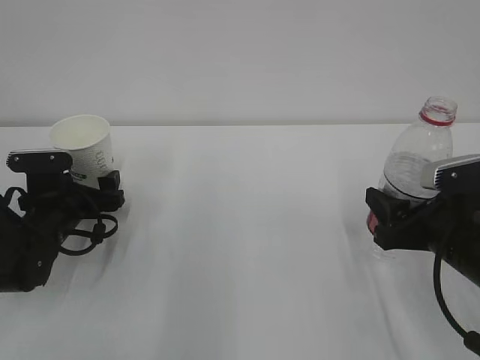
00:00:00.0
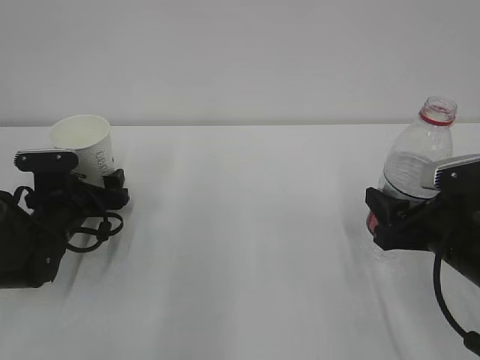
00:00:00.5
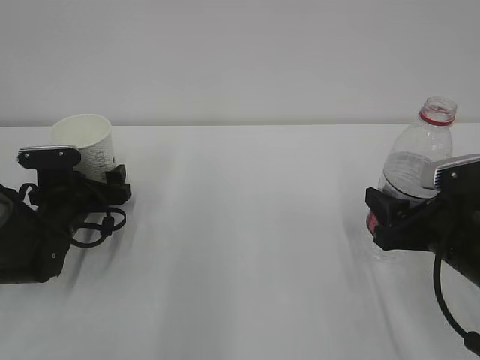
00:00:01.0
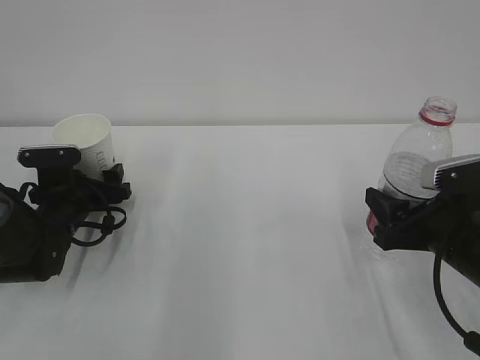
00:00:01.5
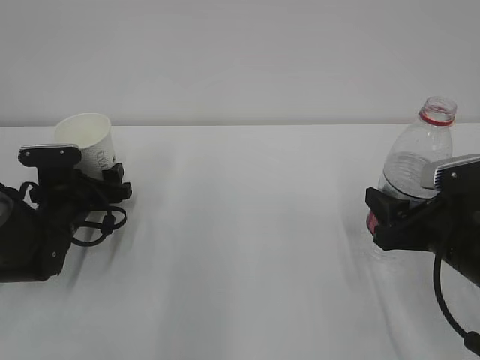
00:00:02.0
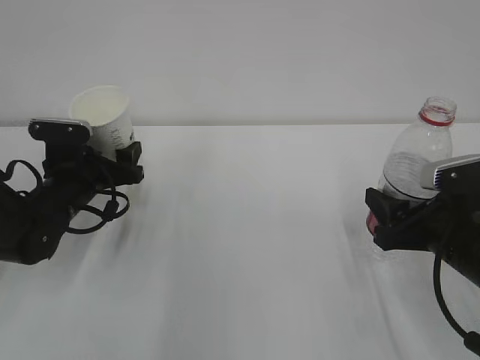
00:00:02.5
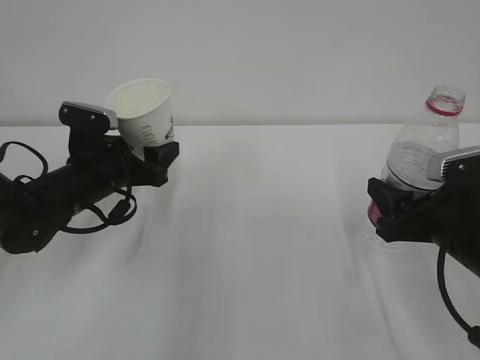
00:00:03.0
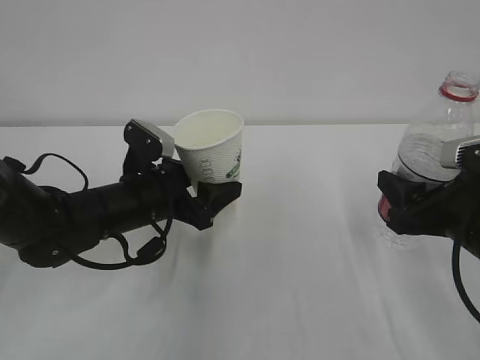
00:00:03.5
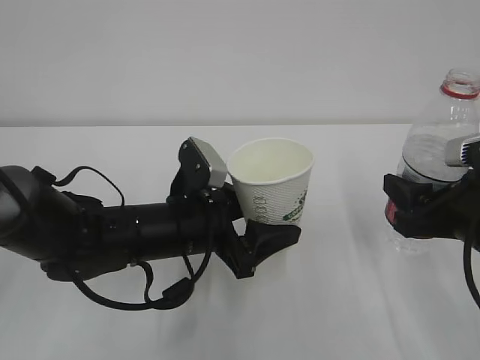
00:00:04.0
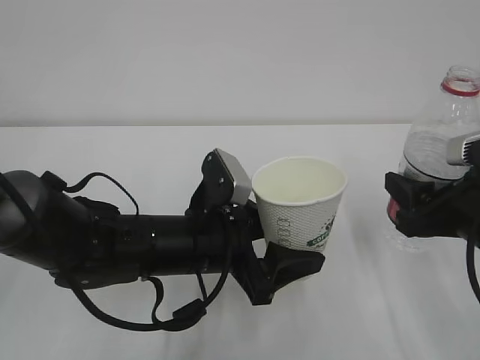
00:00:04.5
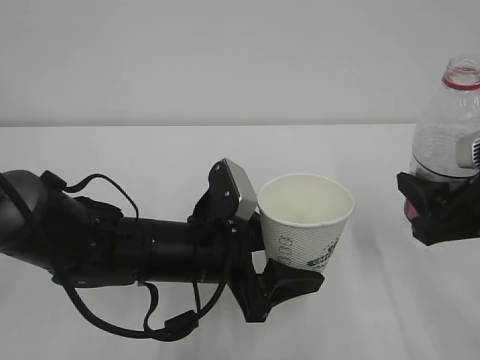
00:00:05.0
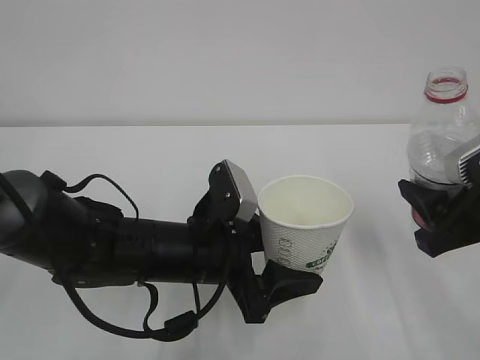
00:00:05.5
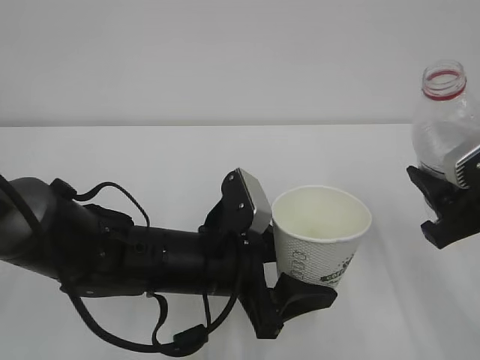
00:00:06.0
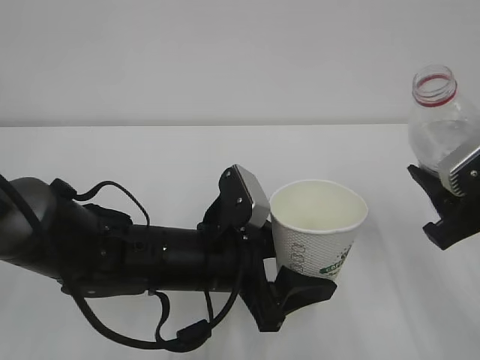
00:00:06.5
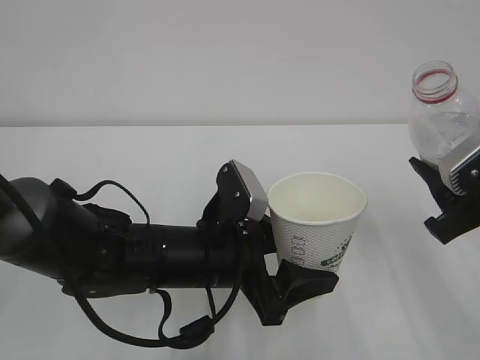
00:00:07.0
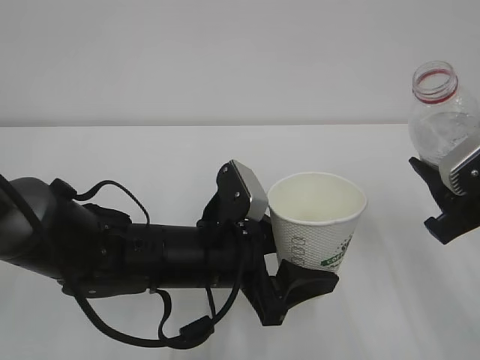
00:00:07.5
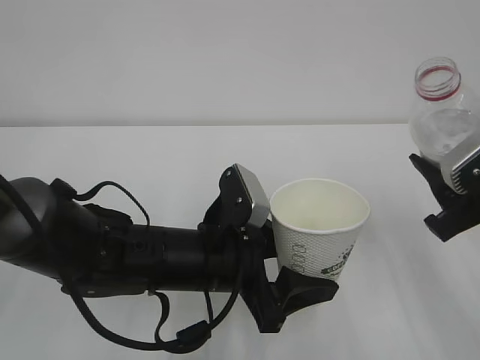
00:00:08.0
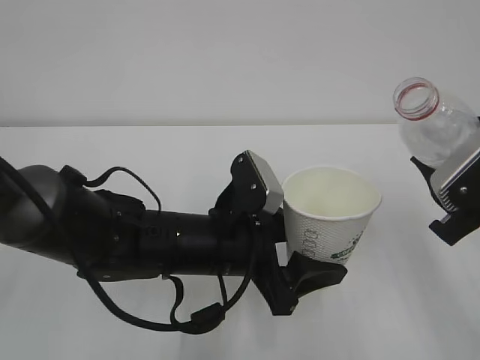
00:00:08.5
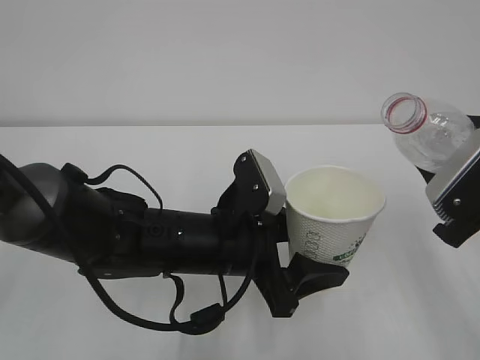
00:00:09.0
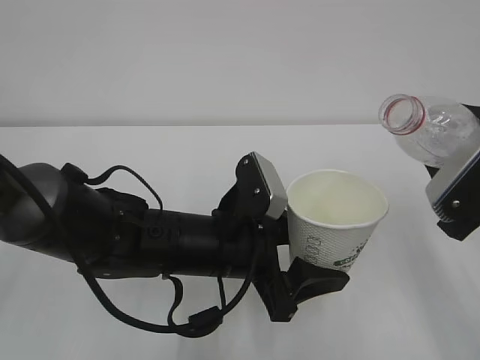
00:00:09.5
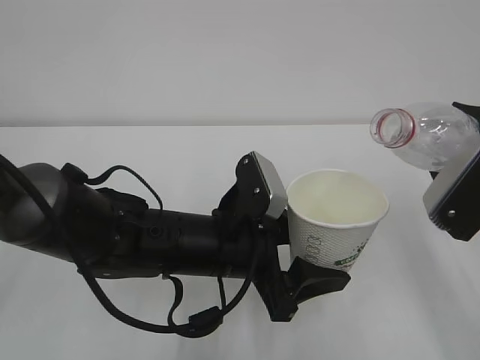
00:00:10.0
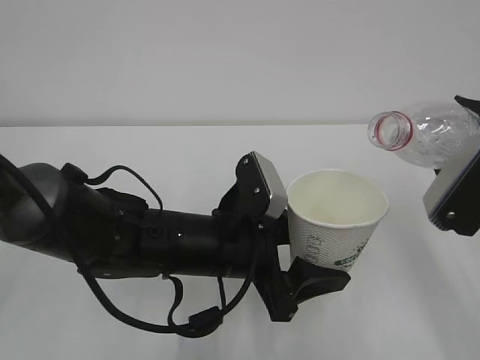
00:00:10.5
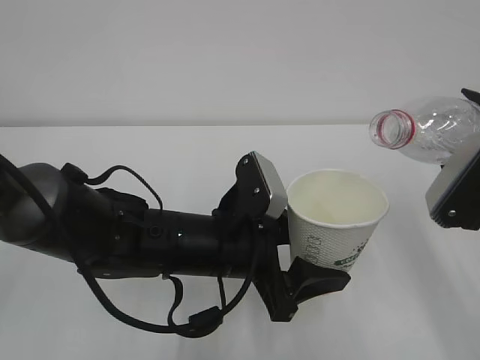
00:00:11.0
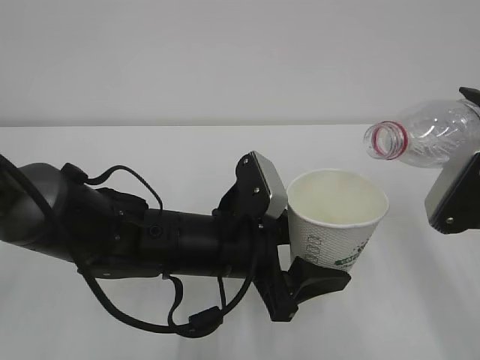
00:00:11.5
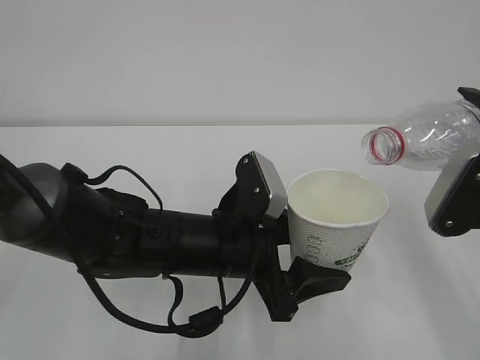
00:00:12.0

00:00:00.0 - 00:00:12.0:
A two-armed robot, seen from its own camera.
00:00:00.0 - 00:00:02.0: The left gripper closes.
00:00:02.0 - 00:00:04.0: The left gripper shifts some 20 cm to the right and backward.
00:00:04.0 - 00:00:06.0: The left gripper shifts by some 5 cm.
00:00:06.0 - 00:00:08.0: The grippers stay close to where they were, moving slightly.
00:00:10.0 - 00:00:12.0: The grippers stay close to where they were, moving slightly.

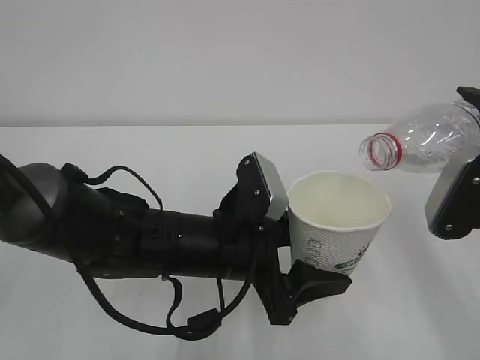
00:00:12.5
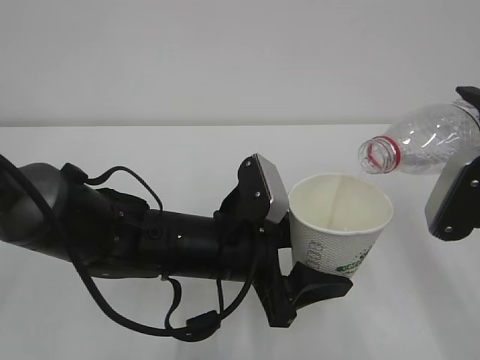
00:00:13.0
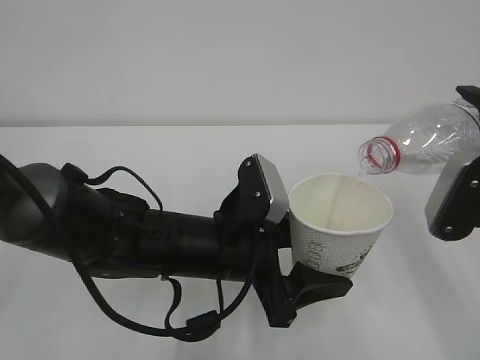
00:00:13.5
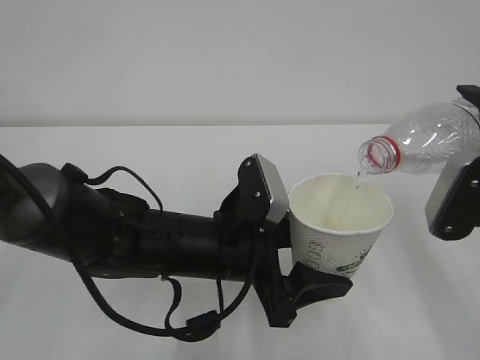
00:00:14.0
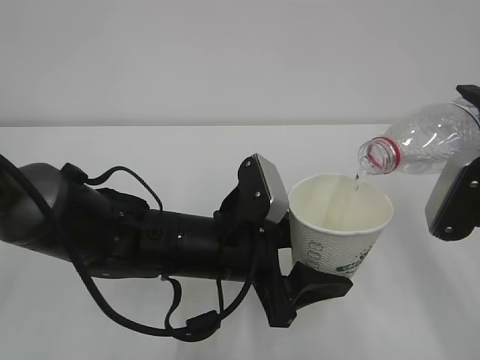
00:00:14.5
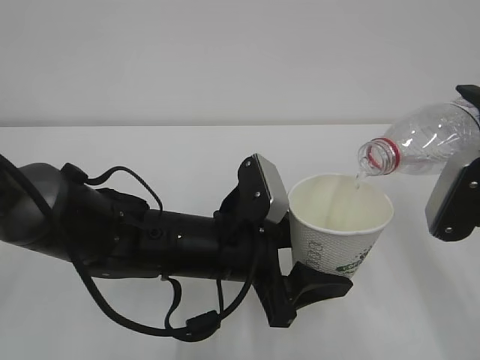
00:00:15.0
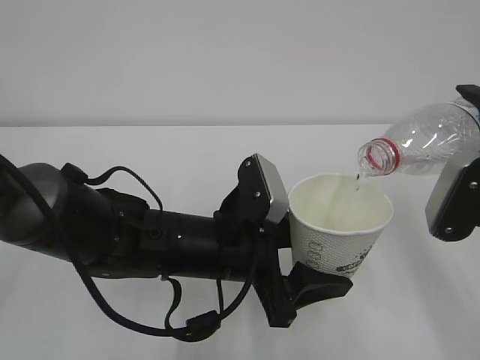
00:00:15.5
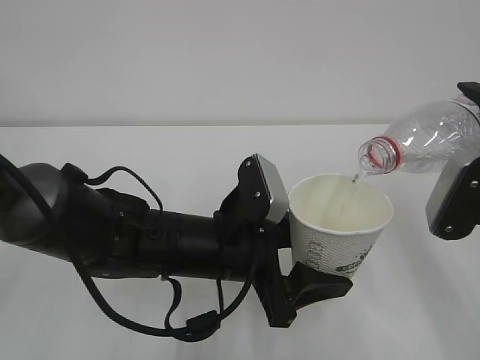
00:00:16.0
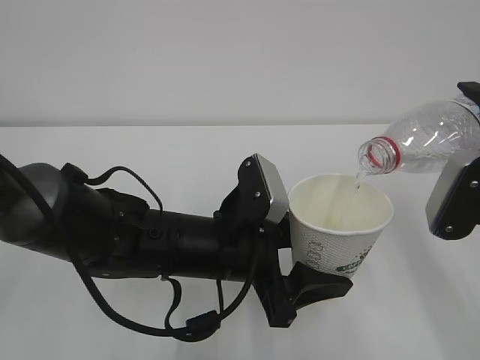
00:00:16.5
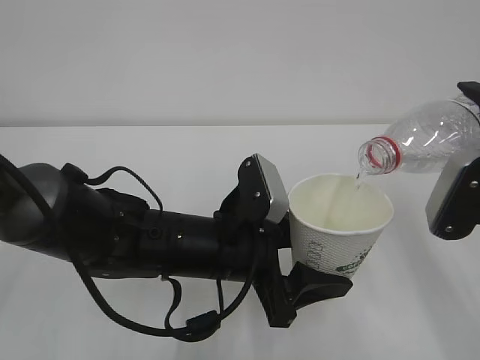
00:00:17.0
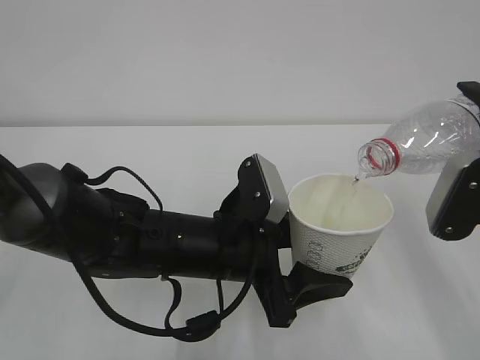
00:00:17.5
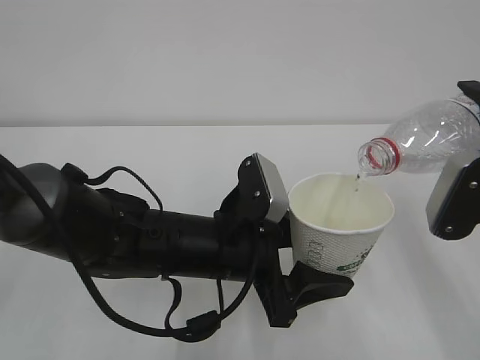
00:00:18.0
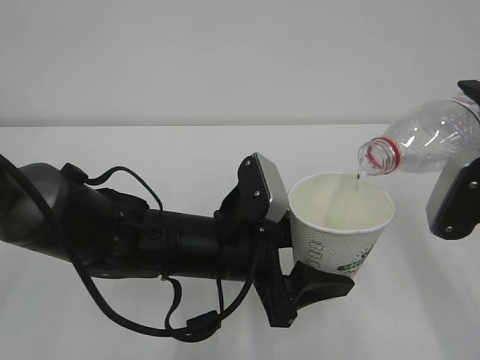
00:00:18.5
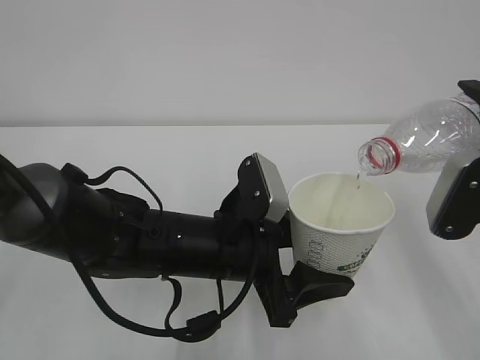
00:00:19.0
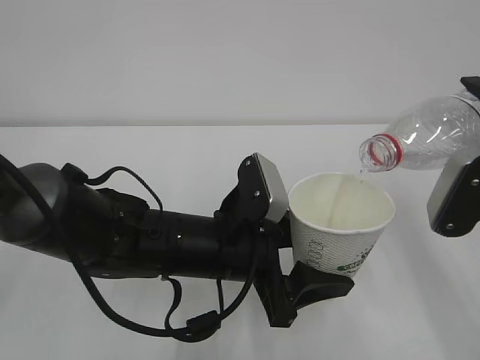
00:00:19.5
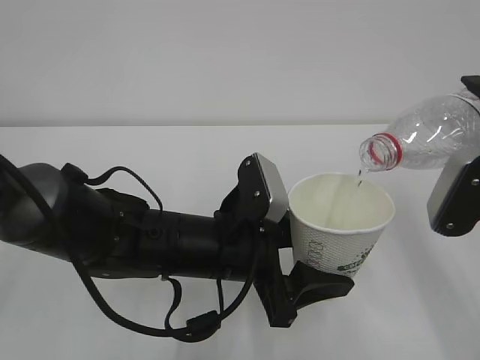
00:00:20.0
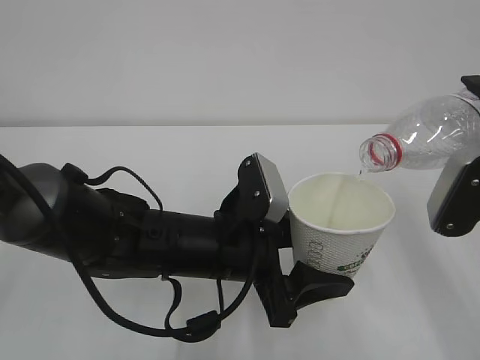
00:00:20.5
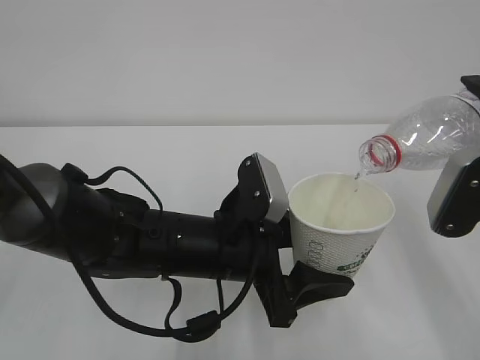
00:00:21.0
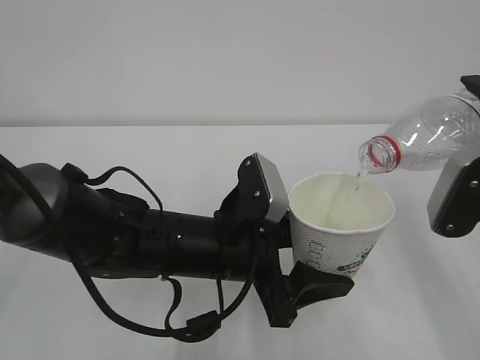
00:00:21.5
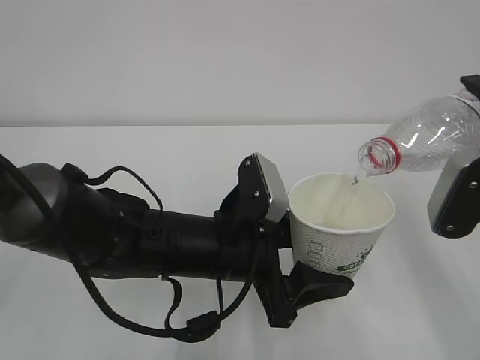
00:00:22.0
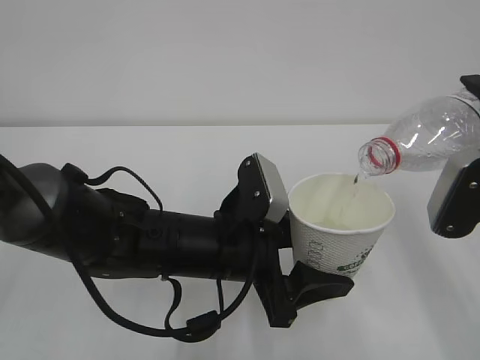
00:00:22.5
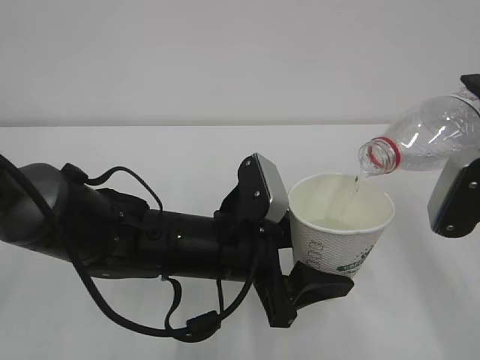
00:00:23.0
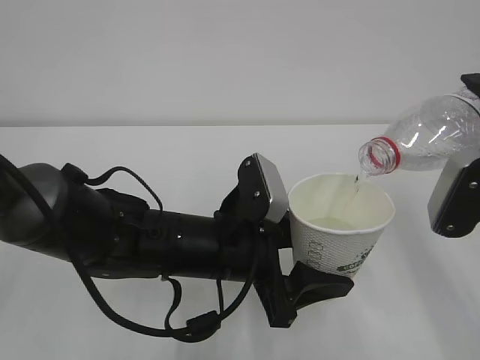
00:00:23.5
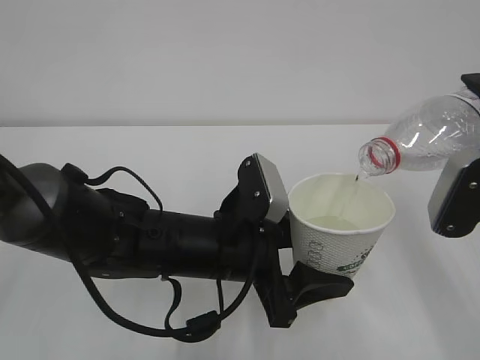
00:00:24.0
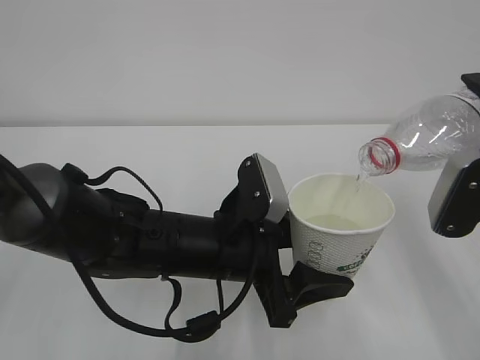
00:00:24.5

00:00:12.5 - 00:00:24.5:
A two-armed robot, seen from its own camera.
00:00:12.5 - 00:00:18.5: Both grippers stay put.
00:00:18.5 - 00:00:24.5: Neither gripper changes place.

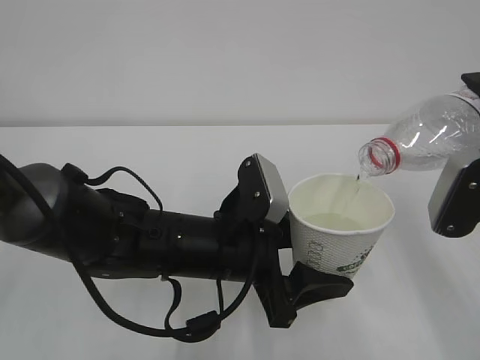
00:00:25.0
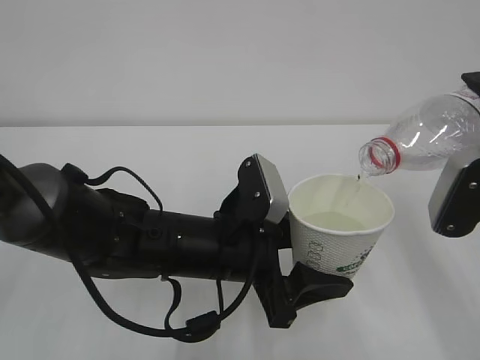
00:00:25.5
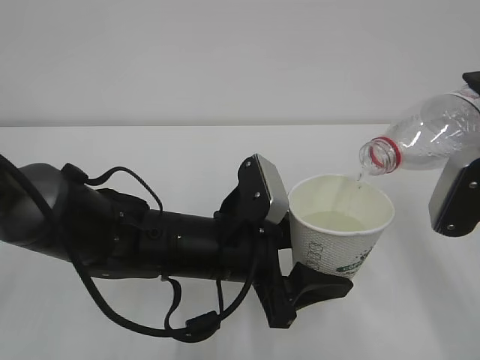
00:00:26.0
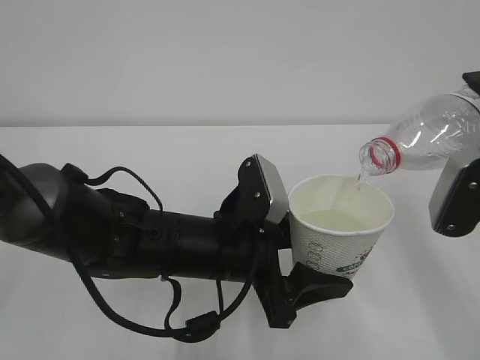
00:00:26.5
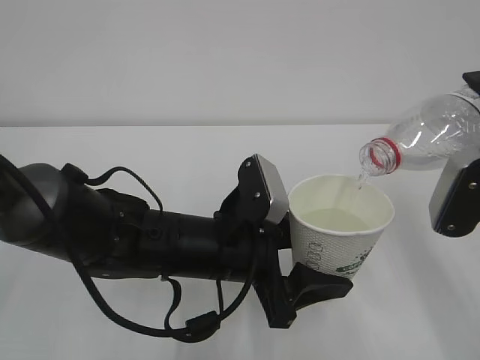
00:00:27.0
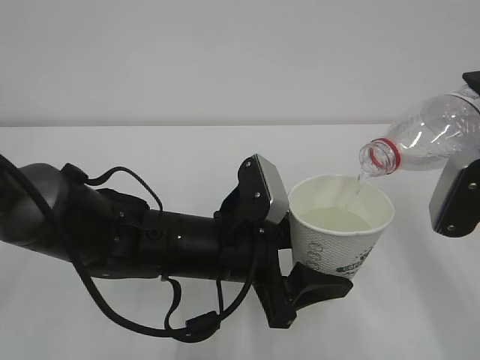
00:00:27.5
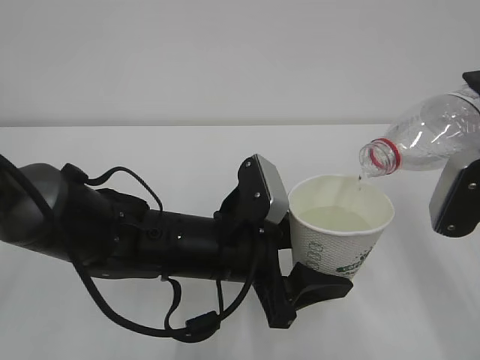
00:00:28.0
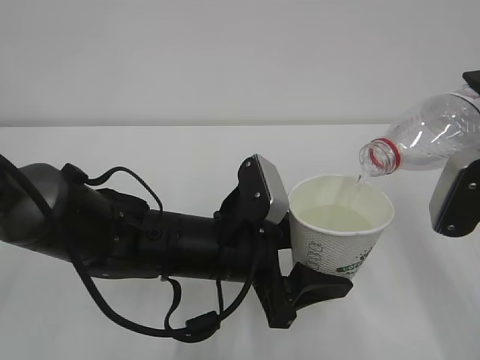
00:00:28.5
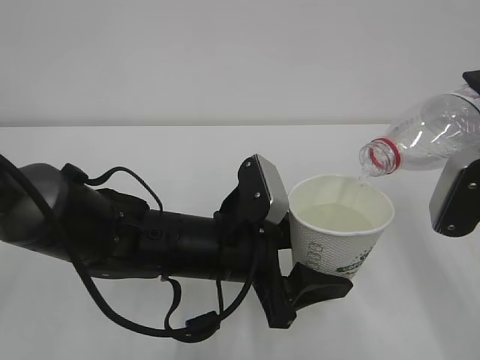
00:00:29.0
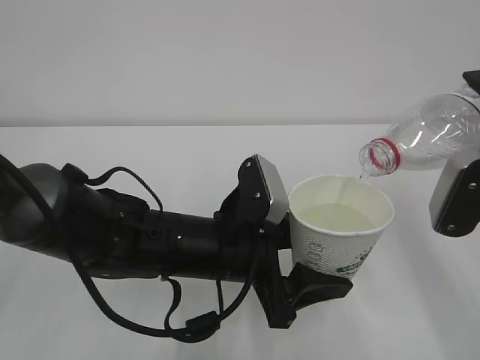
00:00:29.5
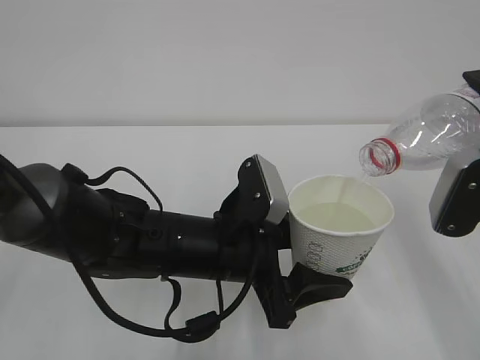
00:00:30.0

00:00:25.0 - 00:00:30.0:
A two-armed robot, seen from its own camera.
00:00:25.0 - 00:00:30.0: Both grippers stay put.
